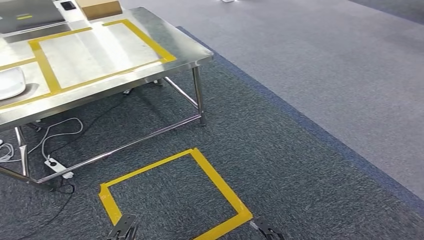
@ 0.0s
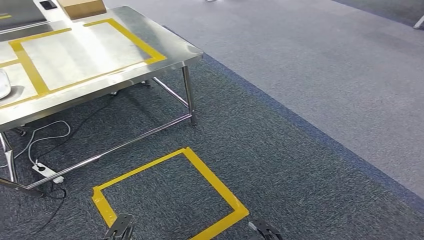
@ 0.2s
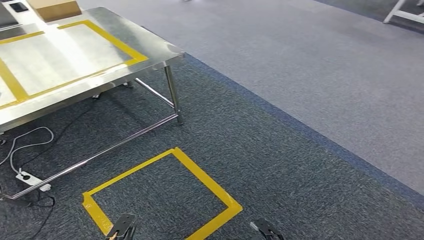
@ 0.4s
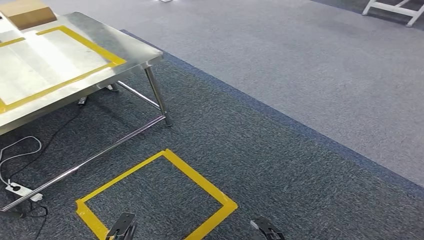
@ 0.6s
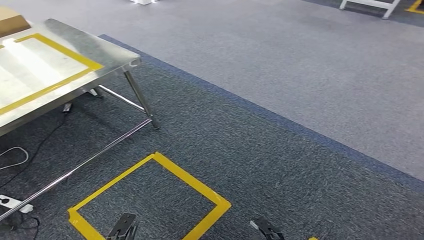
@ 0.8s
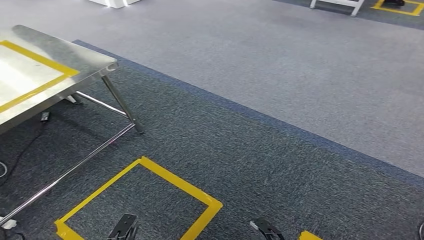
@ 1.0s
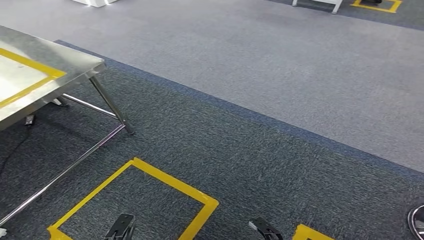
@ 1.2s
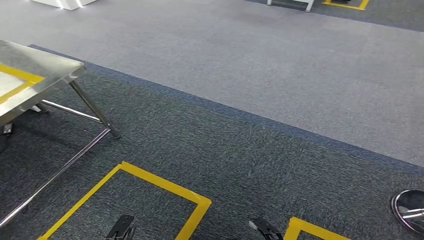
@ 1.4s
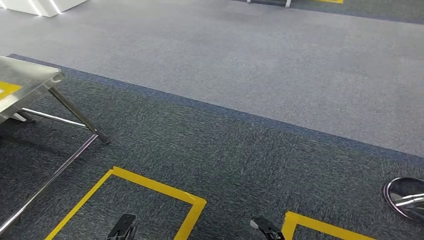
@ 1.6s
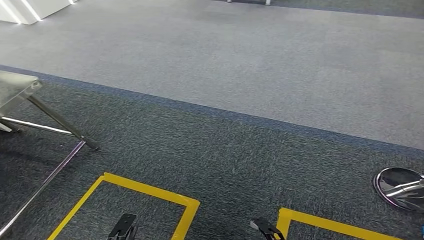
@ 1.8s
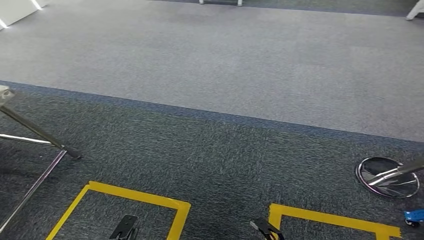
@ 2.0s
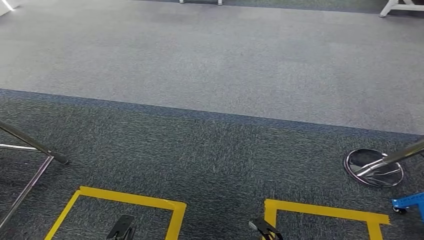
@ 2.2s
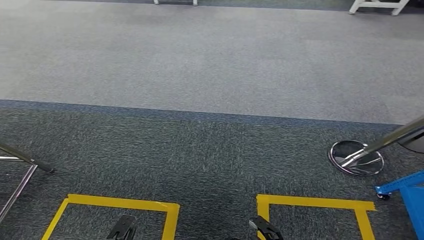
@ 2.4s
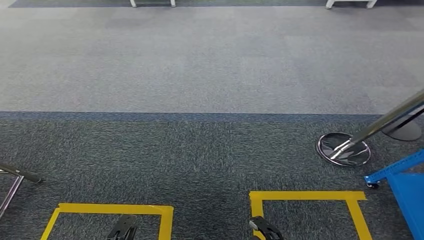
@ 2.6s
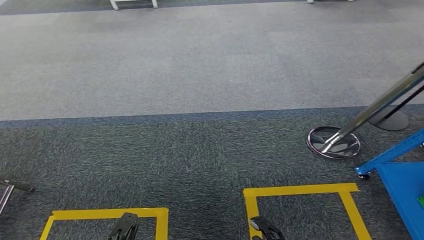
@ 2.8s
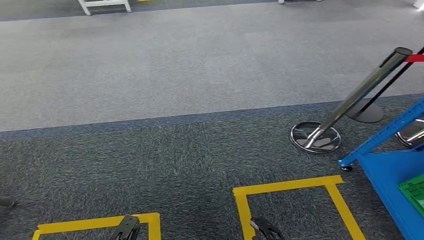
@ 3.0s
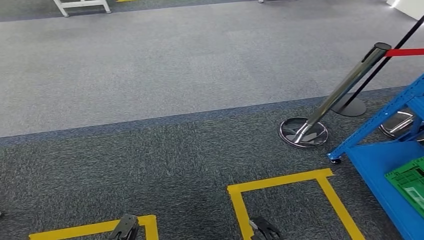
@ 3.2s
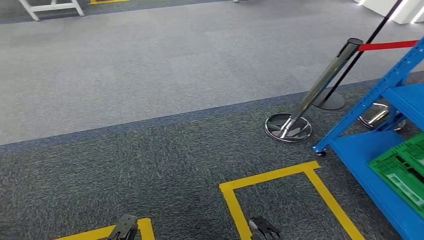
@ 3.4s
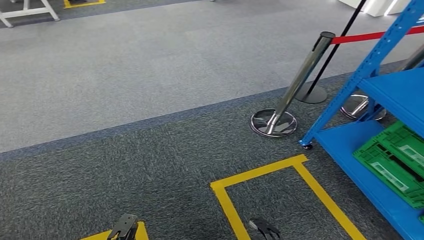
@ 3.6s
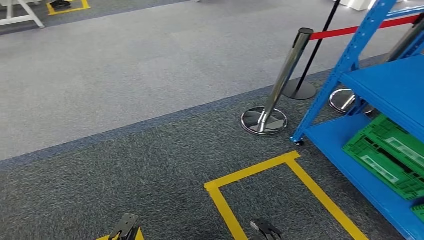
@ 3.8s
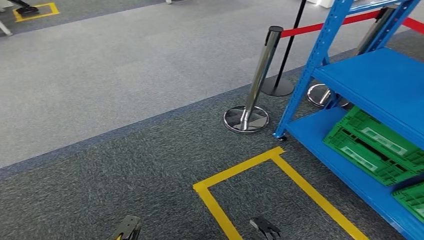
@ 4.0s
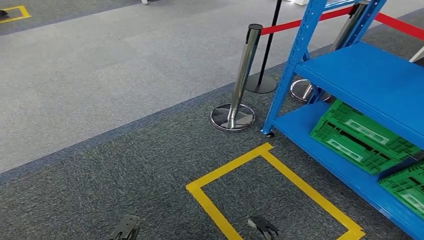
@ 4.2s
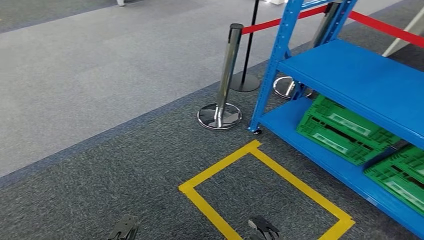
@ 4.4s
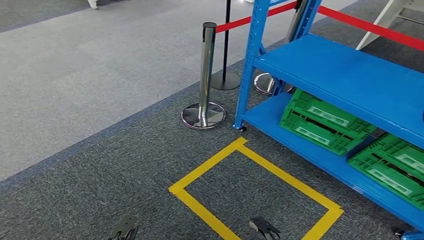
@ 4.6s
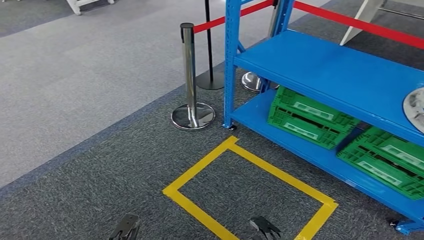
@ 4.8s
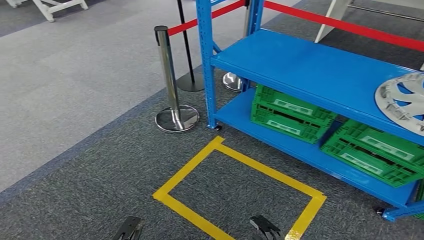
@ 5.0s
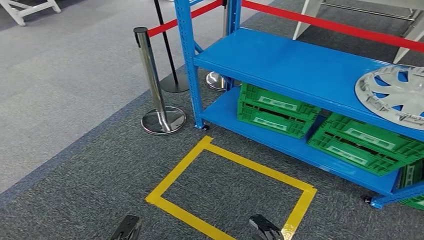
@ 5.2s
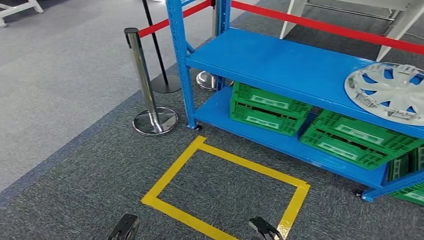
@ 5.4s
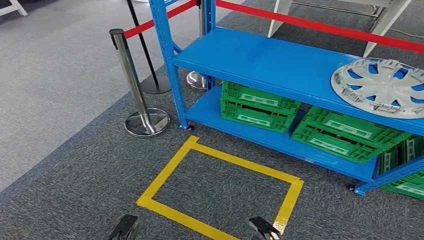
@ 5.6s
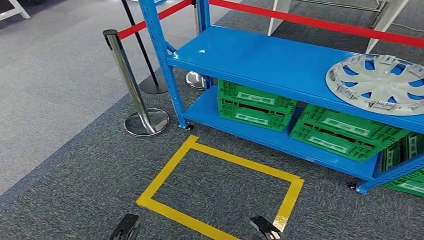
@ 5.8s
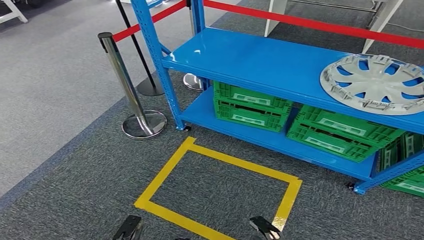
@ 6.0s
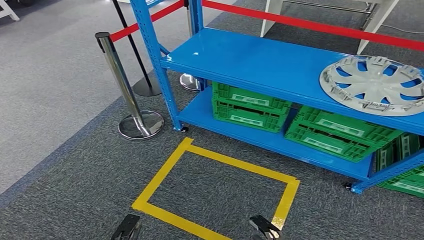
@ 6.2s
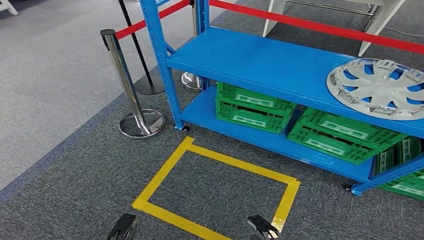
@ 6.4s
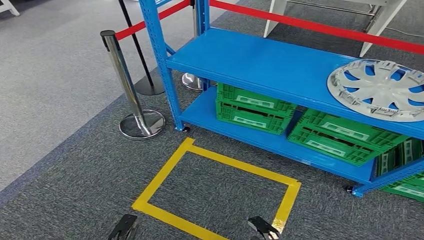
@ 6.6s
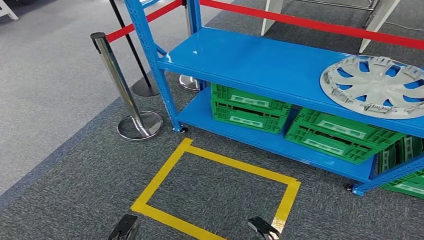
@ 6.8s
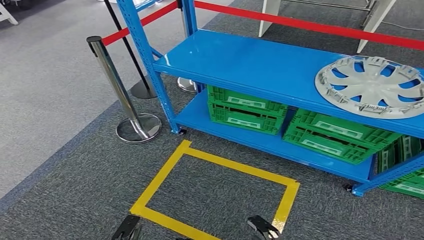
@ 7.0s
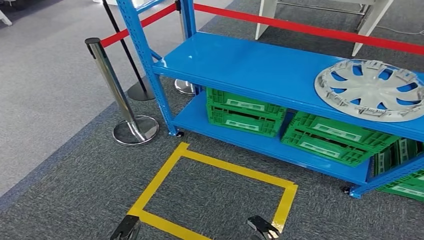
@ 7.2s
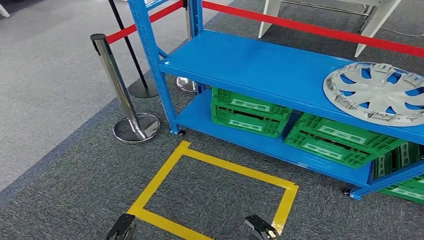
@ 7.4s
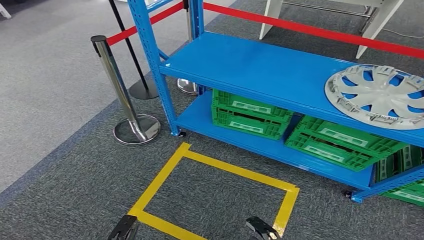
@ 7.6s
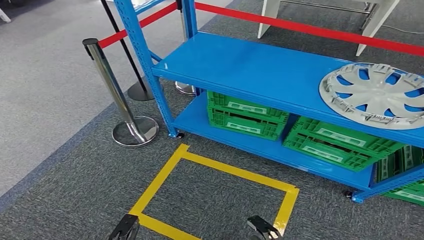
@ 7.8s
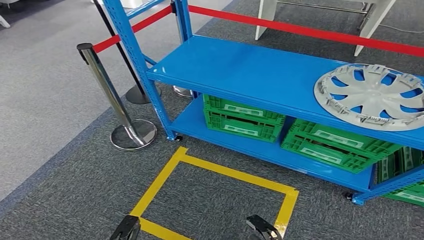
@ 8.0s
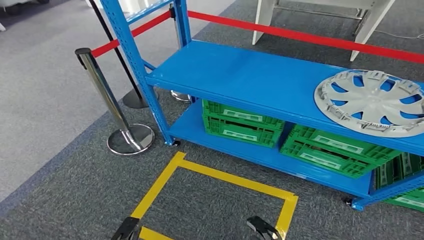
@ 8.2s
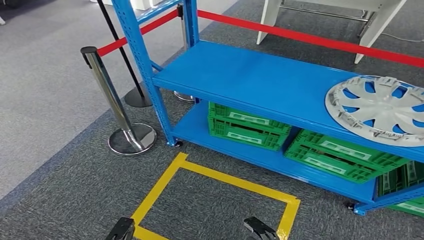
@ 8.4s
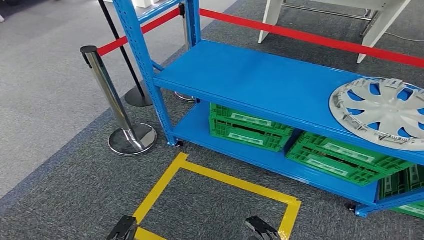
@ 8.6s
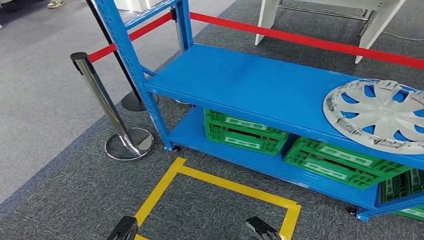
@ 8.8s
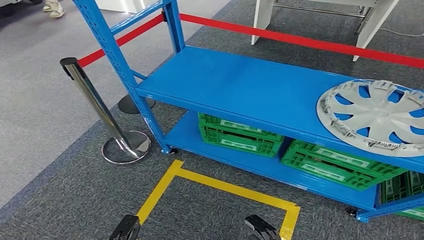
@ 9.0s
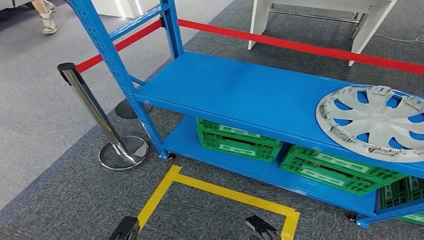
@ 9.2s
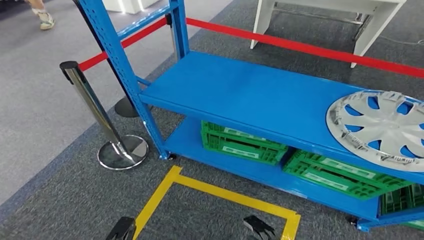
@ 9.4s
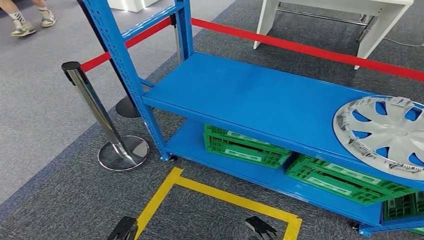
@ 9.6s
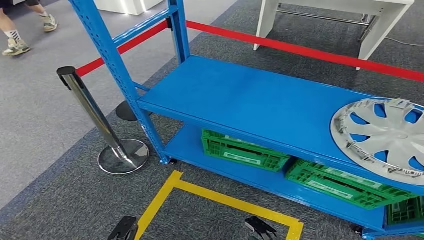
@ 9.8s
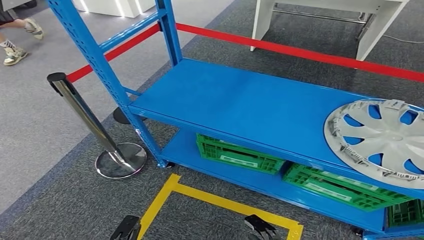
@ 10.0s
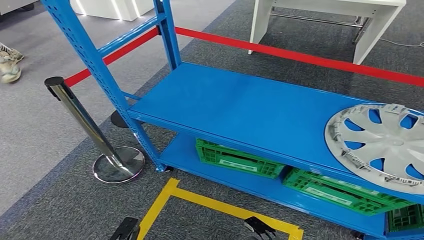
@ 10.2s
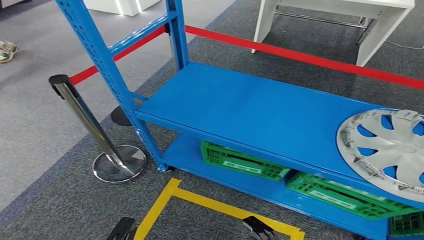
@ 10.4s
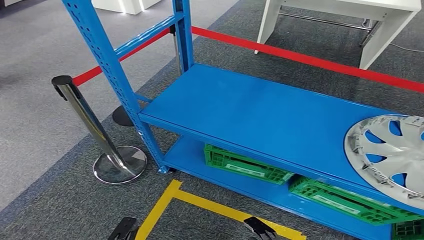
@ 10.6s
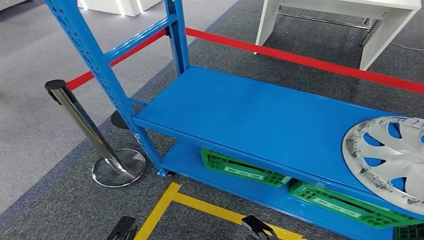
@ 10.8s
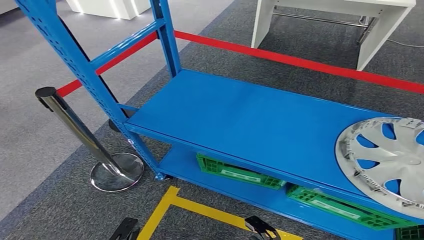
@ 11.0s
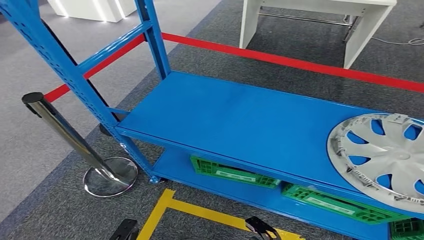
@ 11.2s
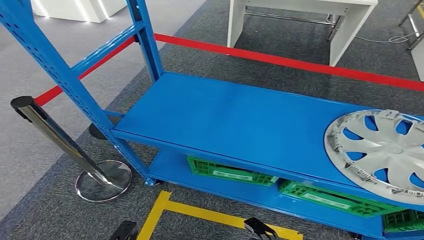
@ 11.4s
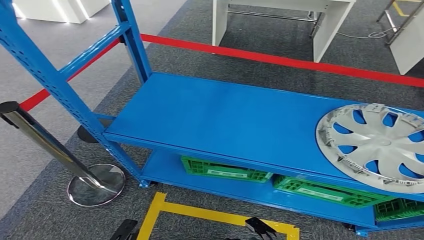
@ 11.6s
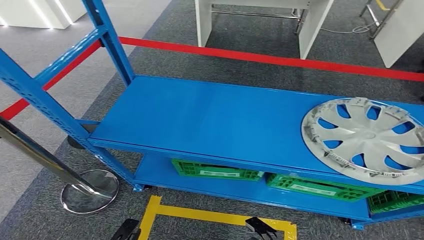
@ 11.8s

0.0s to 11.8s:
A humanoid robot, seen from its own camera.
Step, 0.0s to 4.8s: Insert the small component into the corresponding slot on the workbench.

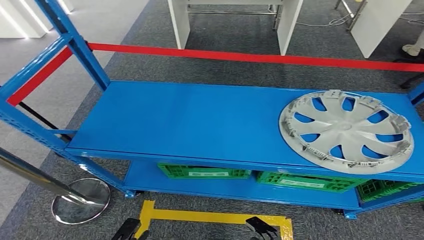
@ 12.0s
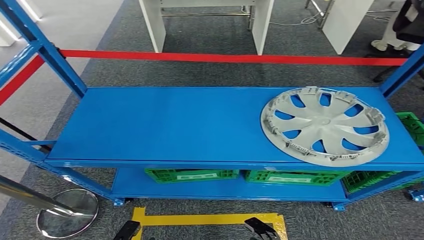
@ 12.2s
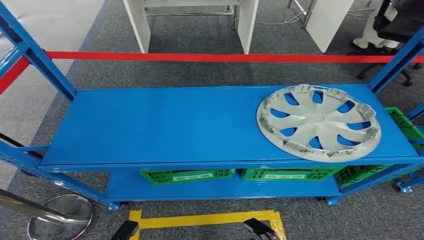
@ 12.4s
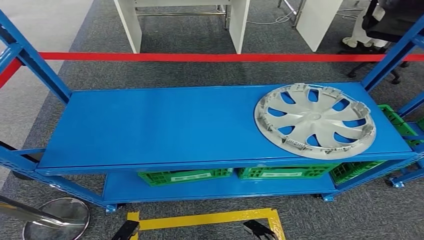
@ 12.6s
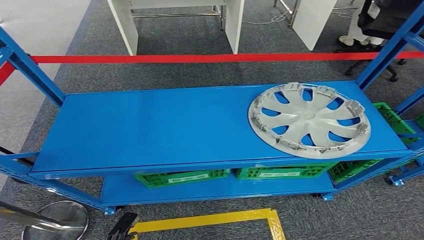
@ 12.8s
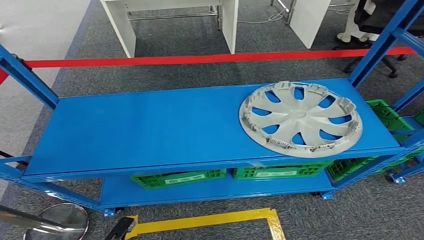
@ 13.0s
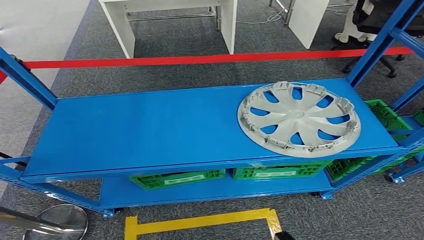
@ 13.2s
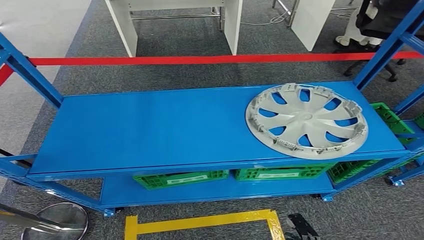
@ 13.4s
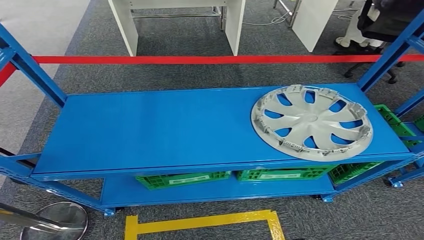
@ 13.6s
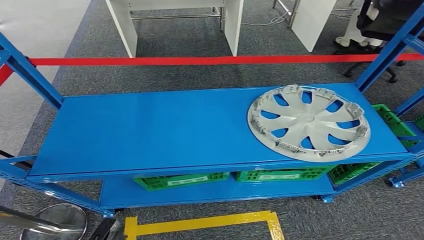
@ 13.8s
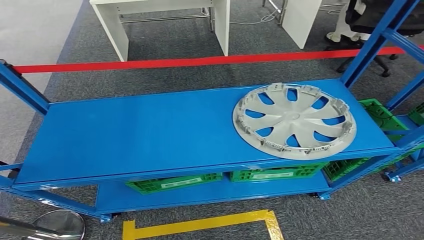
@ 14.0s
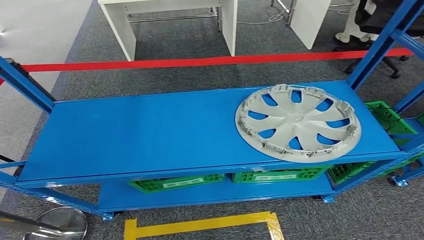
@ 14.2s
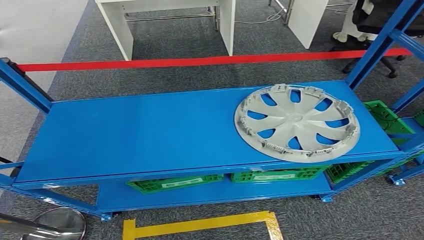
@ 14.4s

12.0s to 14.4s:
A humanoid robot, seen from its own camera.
Step, 12.0s to 14.4s: Move to the initial position at the workbench.
13.2s to 14.4s: The right hand is displaced backward by about 5 cm, while the left hand goes forward and backward, roughly 15 cm each way, reversing 2 times.
